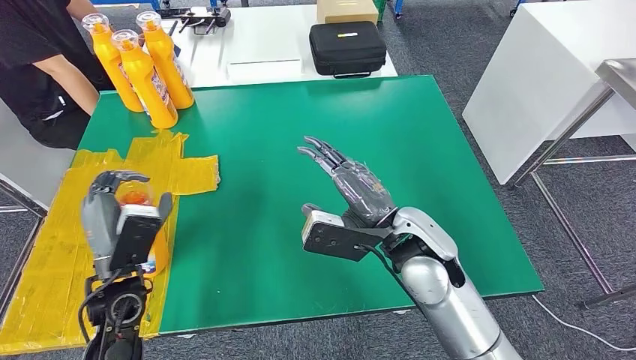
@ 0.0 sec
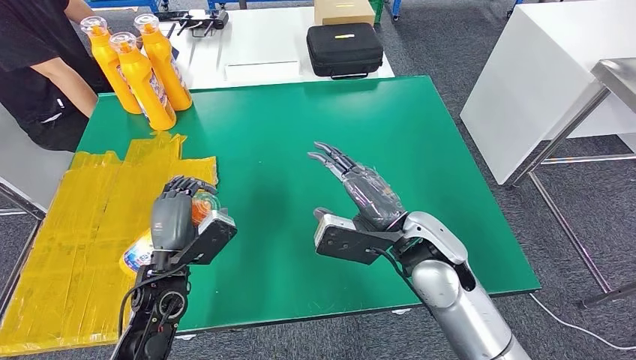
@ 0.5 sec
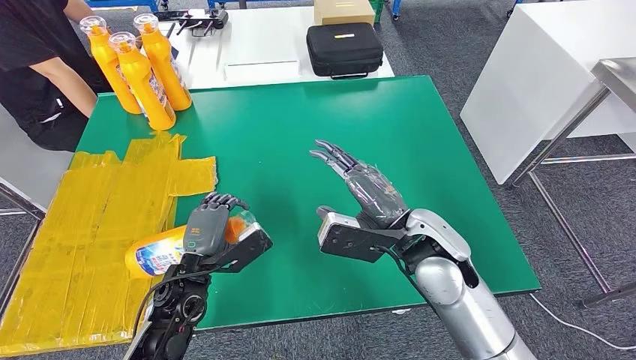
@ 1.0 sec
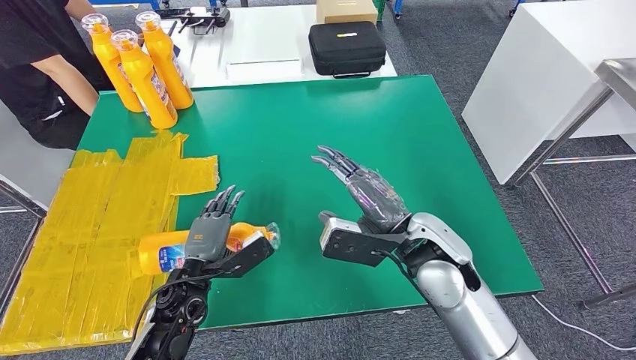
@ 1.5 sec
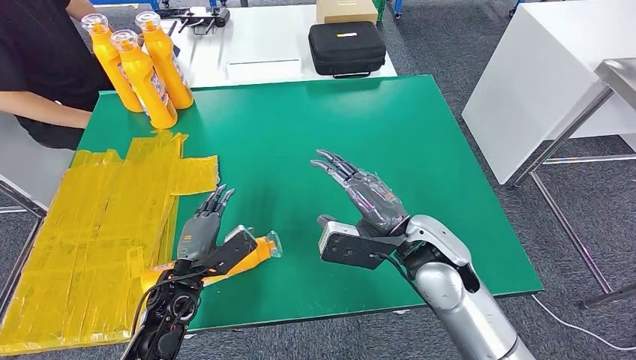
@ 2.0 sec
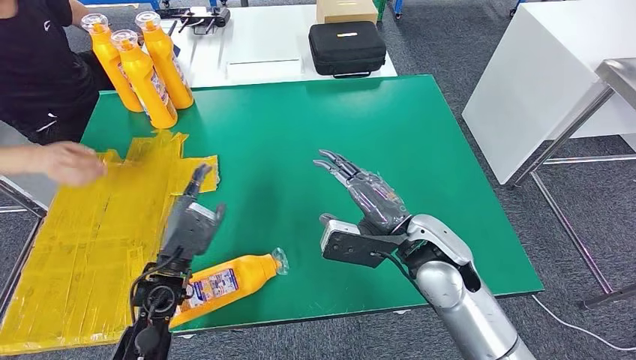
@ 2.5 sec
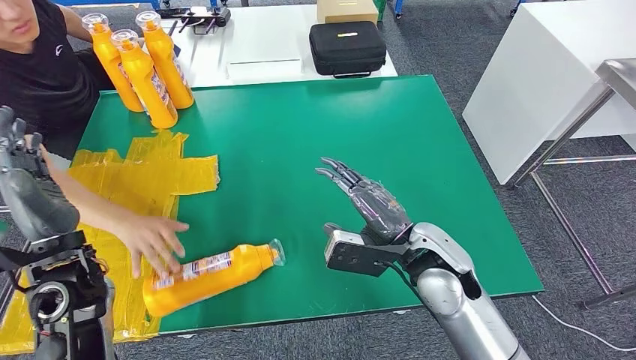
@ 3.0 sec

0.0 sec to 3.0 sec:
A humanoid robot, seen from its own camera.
Step, 0.0 sec to 3.0 sec: Flip the fast-moving consumer goods bottle to the front side.
0.0 sec to 1.5 sec: The left hand is displaced downward and to the right by roughly 10 cm.
